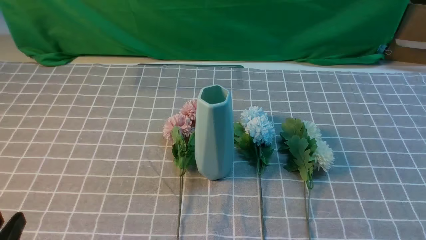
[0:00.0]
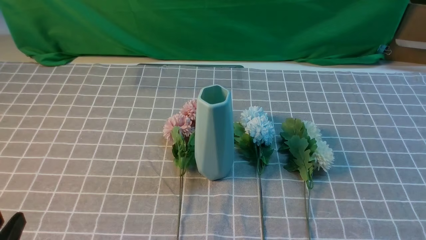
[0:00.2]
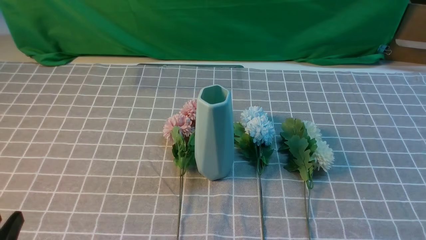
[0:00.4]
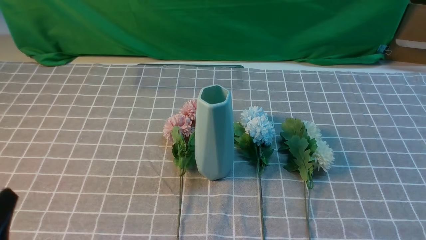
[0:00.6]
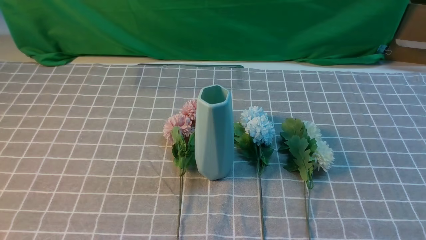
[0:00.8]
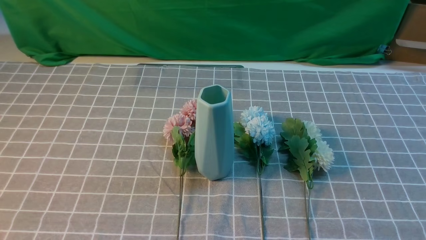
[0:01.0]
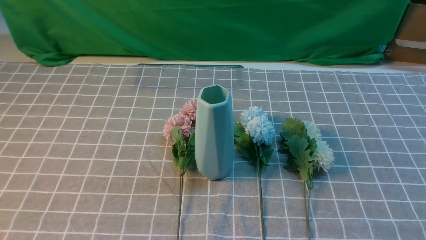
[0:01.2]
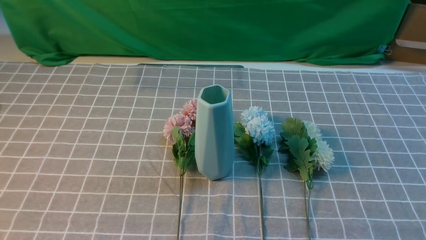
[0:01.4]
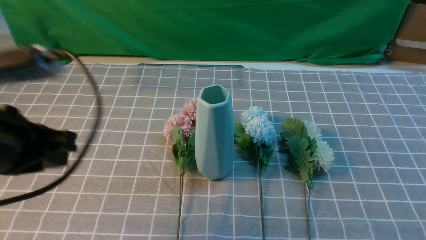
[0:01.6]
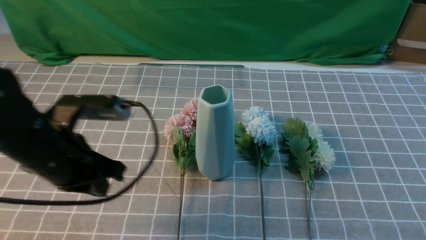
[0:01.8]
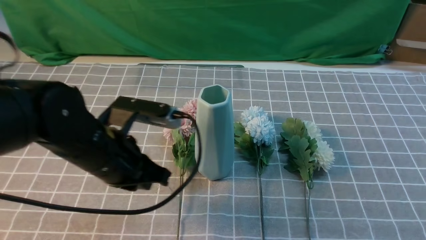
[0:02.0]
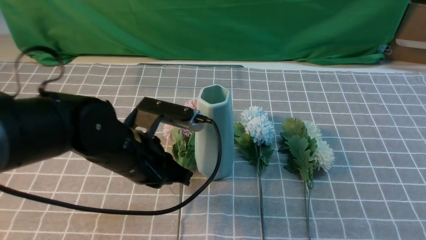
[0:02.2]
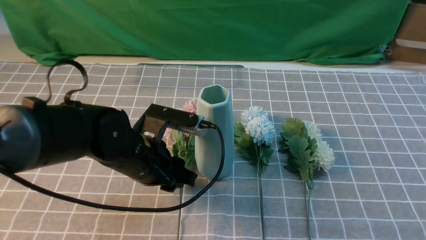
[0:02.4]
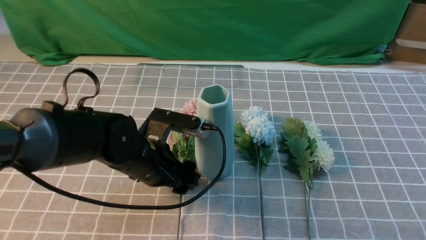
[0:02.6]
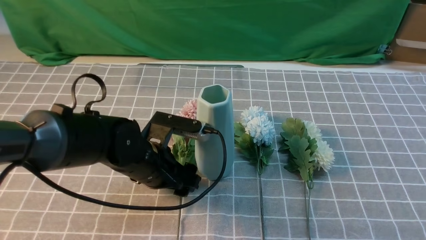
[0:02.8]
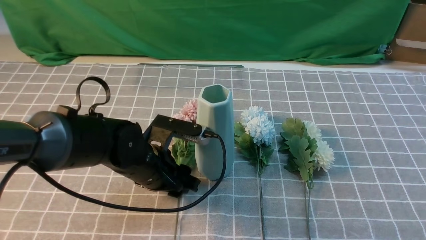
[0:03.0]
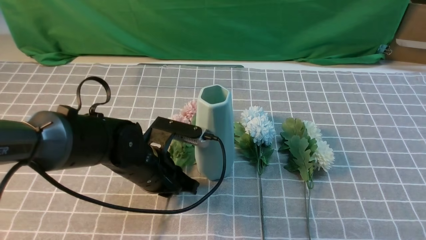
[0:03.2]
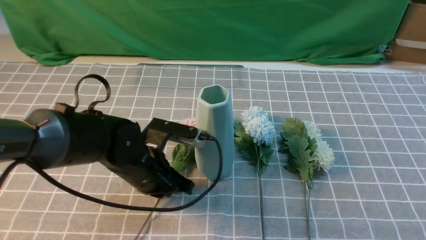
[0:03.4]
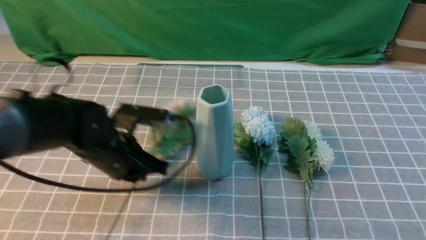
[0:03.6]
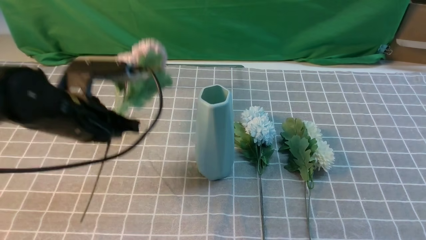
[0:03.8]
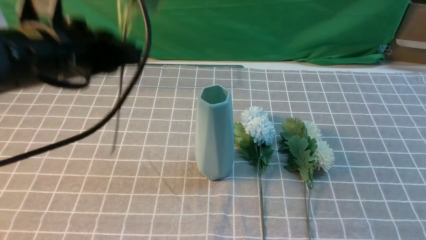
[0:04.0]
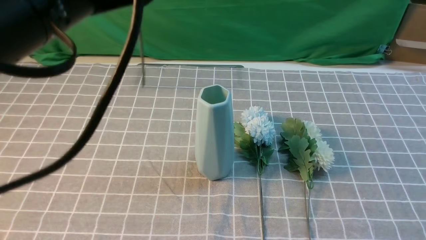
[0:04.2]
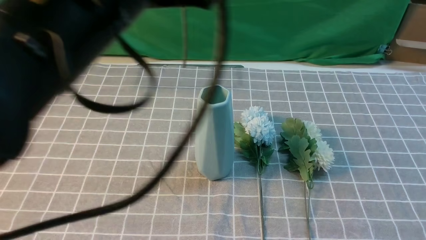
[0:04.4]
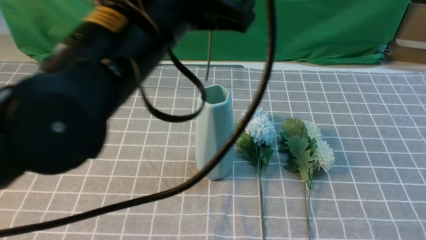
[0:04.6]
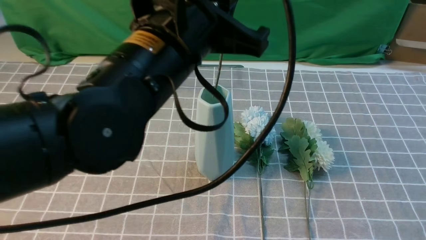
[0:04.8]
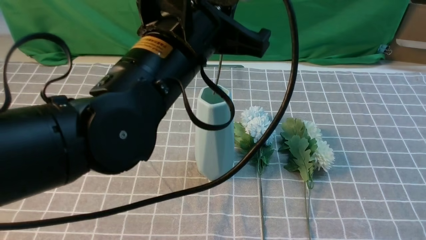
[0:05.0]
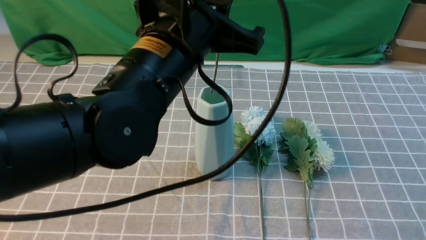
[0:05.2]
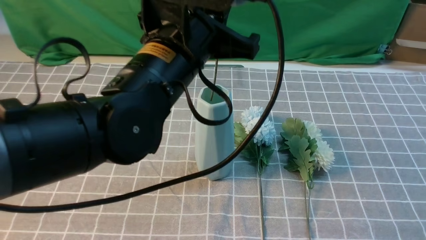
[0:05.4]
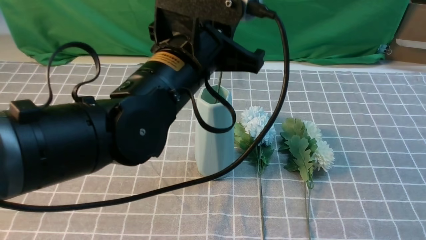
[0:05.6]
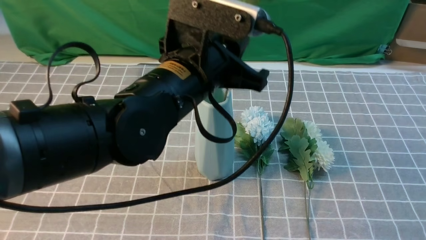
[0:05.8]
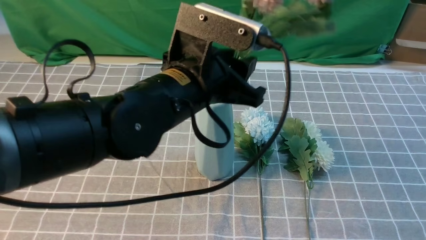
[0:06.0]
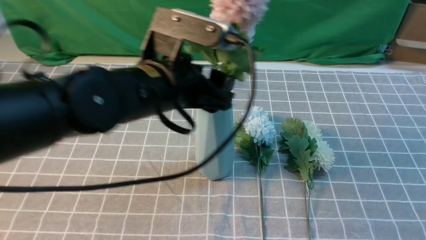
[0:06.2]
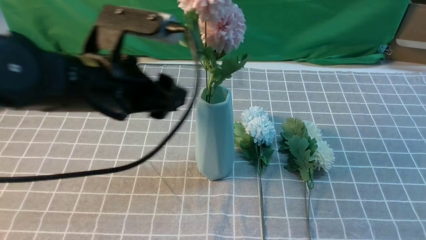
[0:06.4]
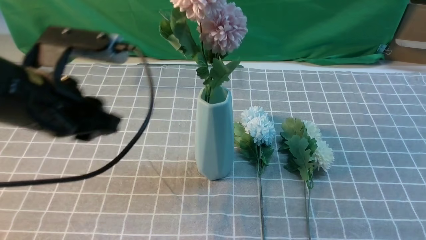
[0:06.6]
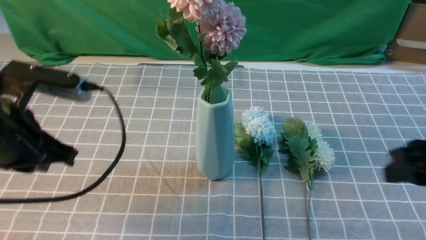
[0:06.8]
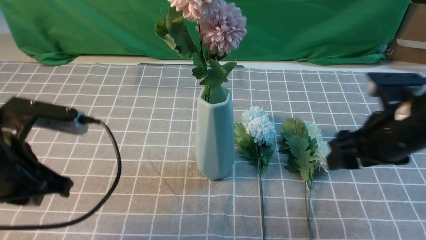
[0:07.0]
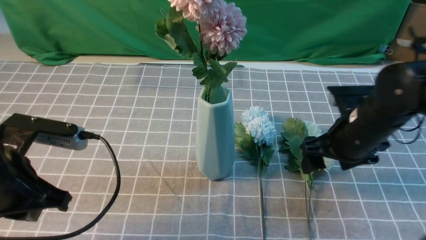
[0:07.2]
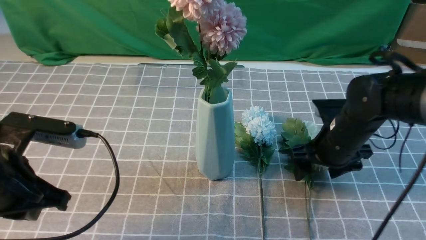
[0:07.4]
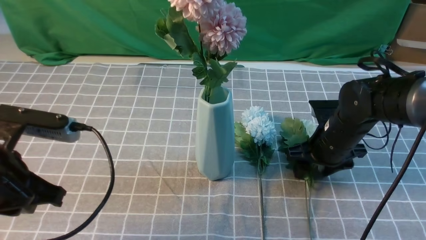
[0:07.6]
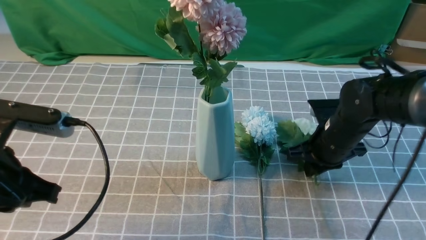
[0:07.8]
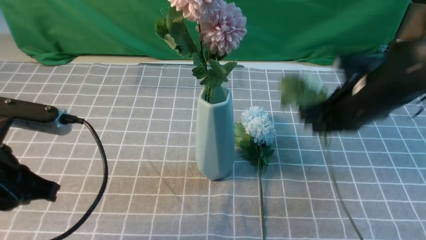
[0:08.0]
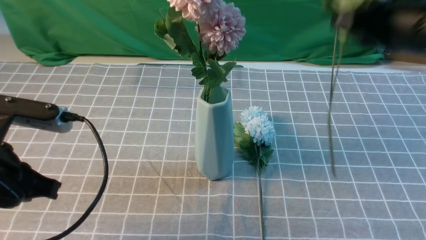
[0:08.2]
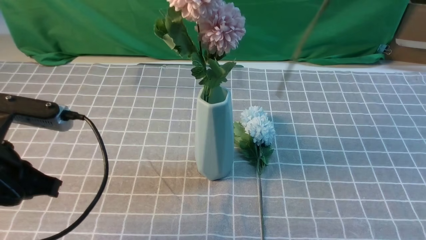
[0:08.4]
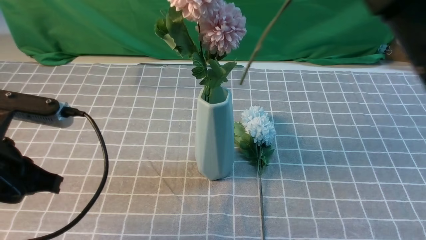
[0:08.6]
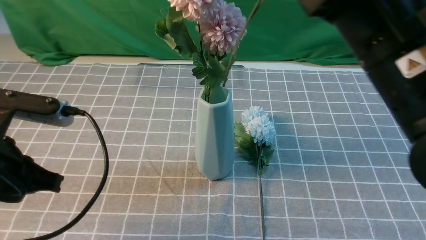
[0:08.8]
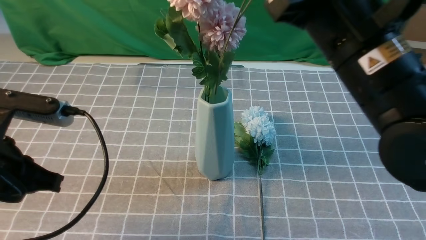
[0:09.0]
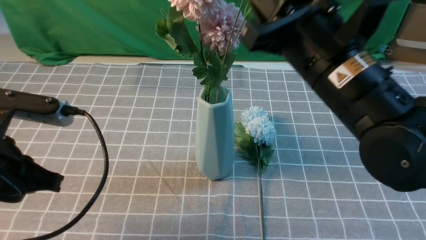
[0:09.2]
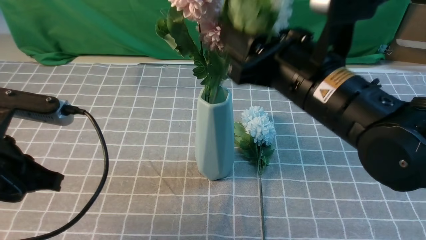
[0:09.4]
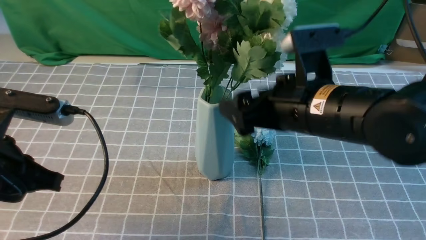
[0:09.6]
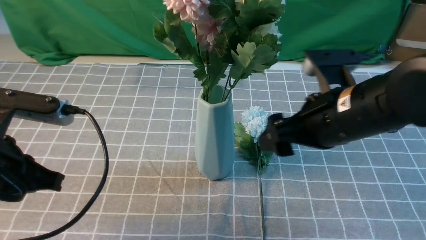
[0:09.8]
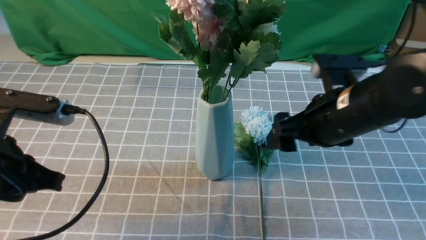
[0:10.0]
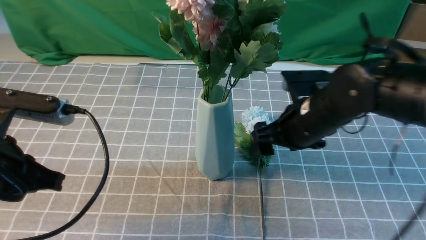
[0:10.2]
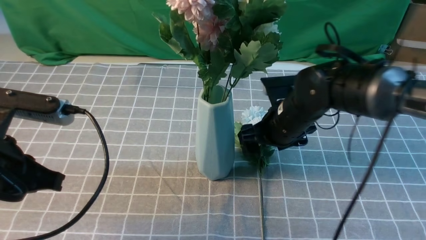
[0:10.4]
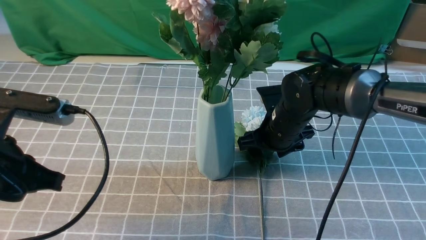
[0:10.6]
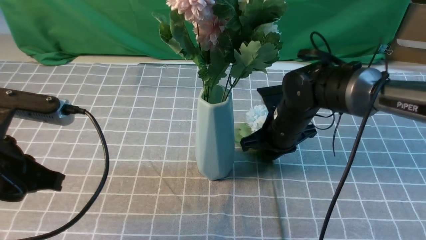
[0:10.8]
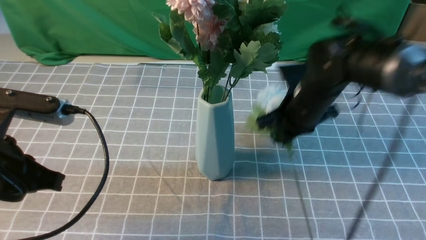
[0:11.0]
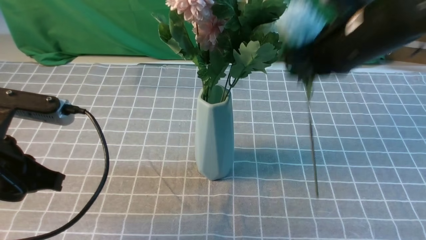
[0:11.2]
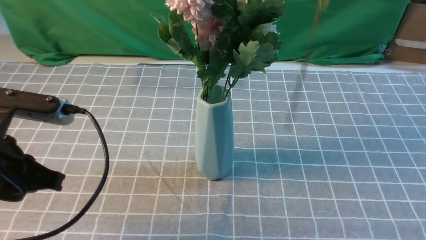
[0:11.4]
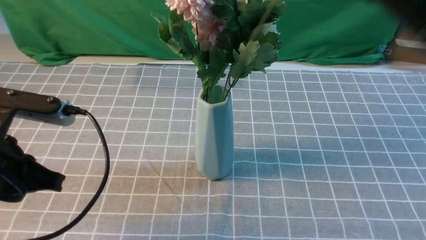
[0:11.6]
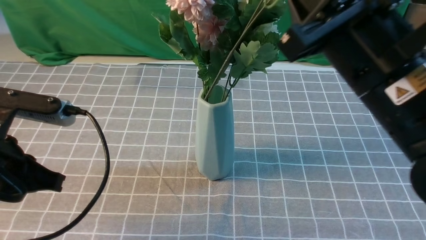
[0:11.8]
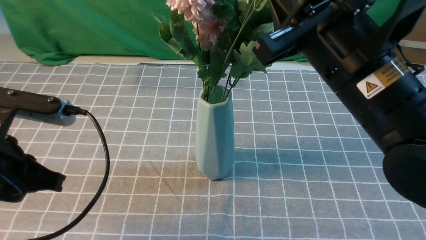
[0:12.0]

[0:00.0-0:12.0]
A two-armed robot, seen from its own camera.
Task of the whole recording: insert the flowers into the vase on the table with the grey tablecloth.
Step, 0:00.0 to 0:03.2: use the left arm to grab a bunch of fresh flowers.
Step, 0:03.4 to 0:06.2: use the left arm to insert the flowers into the vase.
Step, 0:06.4 to 0:07.6: use the right arm to grab a bunch of fresh flowers.
Step, 0:07.8 to 0:09.4: use the right arm to insert the flowers into the vase.
Step, 0:09.6 to 0:10.8: use the right arm to grab a bunch of fresh flowers.
0:00.0 to 0:01.6: The left gripper travels forward and upward by some 20 cm, and closes its fingers.
0:01.6 to 0:03.0: The left gripper is displaced downward, to the right and forward by roughly 20 cm, and opens up. Meanwhile the right gripper is displaced upward by approximately 10 cm.
0:03.0 to 0:04.4: The left gripper travels upward by approximately 25 cm, and closes.
0:04.4 to 0:06.0: The left gripper heads downward and forward, covering about 10 cm, and opens.
0:06.0 to 0:07.6: The right gripper heads forward, downward and to the left, covering approximately 35 cm, and opens. The left gripper travels to the left and backward by about 20 cm, and closes up.
0:07.6 to 0:09.0: The right gripper moves upward and backward, approximately 25 cm, and closes up.
0:09.0 to 0:10.4: The right gripper is displaced downward and forward by about 20 cm, and opens.
0:10.4 to 0:12.0: The right gripper heads upward and backward, covering approximately 20 cm, and closes.

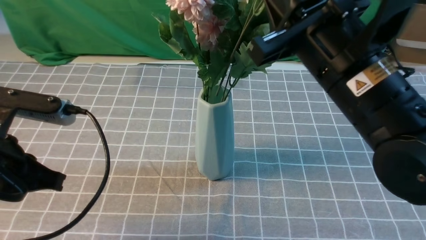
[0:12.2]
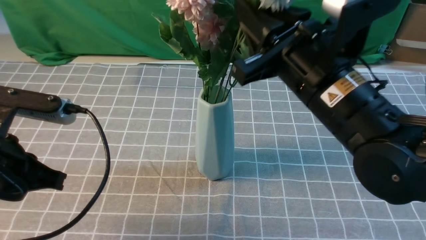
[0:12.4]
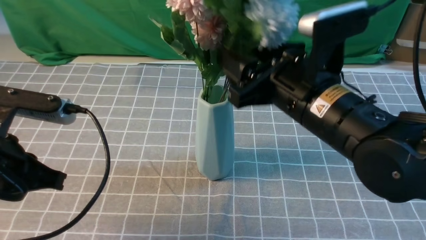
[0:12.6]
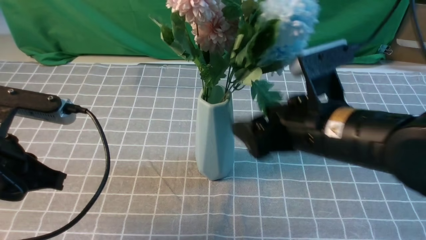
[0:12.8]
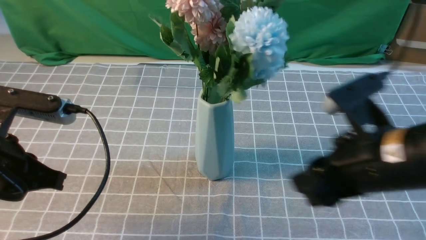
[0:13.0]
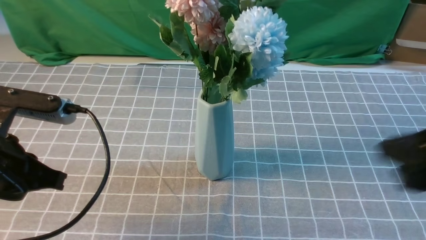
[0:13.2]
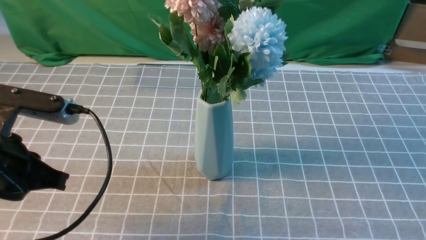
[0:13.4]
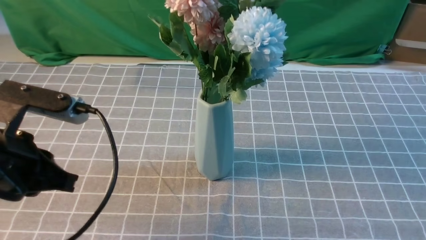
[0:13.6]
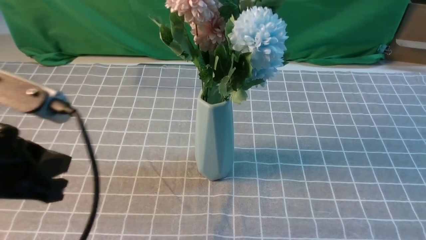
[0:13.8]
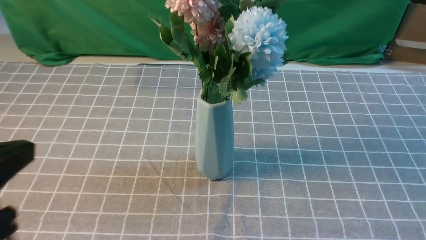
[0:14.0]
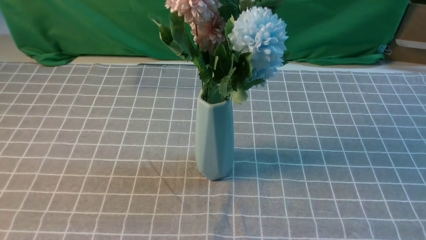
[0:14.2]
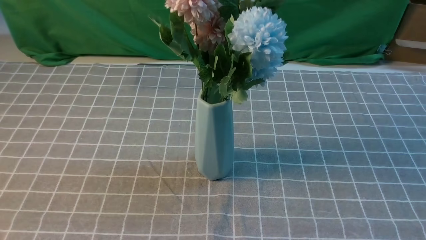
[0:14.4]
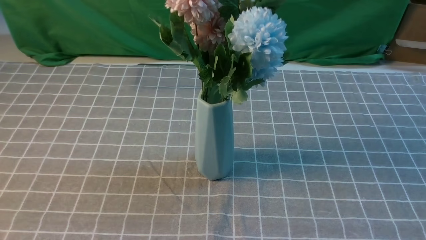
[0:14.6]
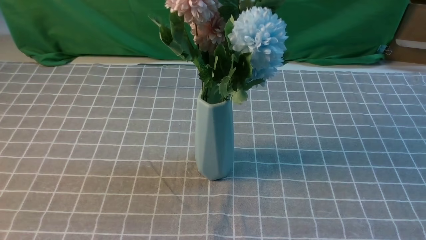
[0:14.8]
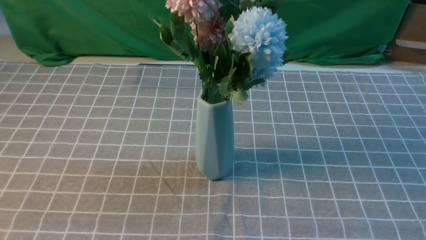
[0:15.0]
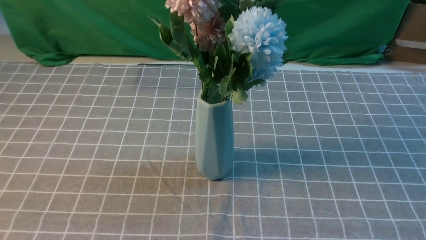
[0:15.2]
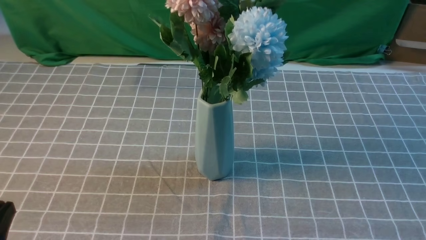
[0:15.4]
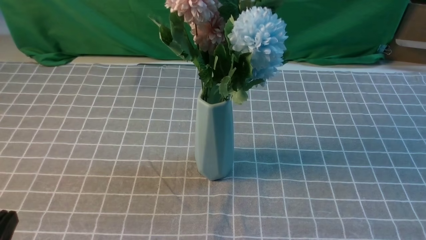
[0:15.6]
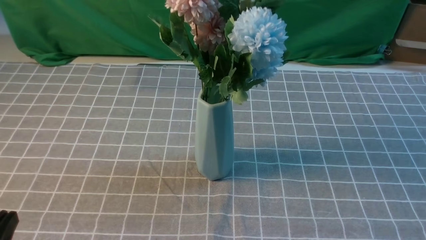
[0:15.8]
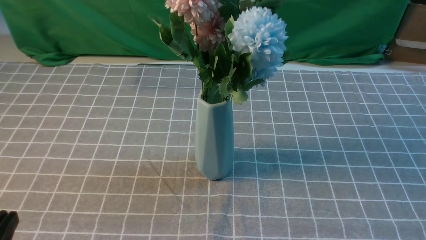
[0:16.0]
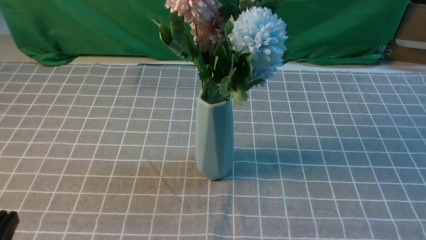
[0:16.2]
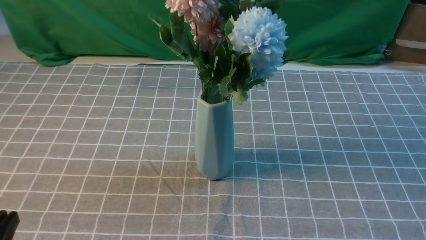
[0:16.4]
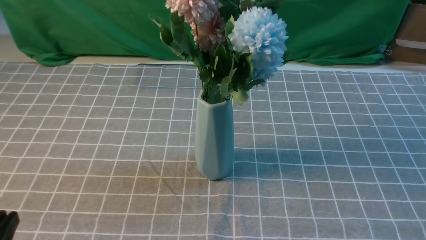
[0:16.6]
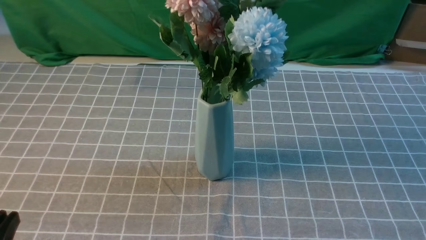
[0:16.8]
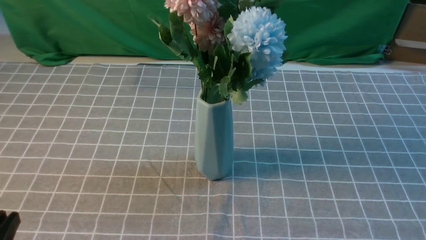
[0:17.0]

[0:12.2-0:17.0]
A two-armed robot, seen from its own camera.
Task of the whole recording: insert the flowers into the vase on the table with the grey tablecloth.
0:12.2 to 0:13.8: The right gripper goes some 30 cm backward and to the right, and opens and closes again; the left gripper moves backward, roughly 5 cm.
0:13.8 to 0:15.4: The left gripper heads downward and backward, covering approximately 15 cm.
